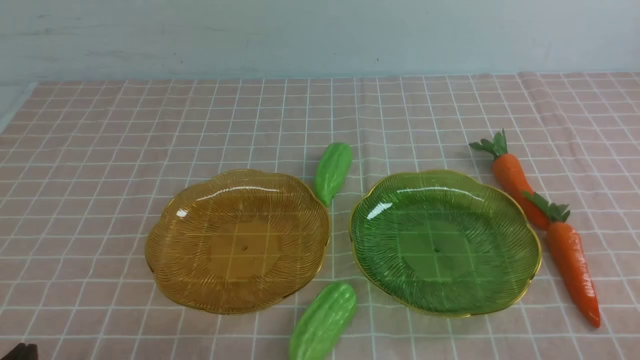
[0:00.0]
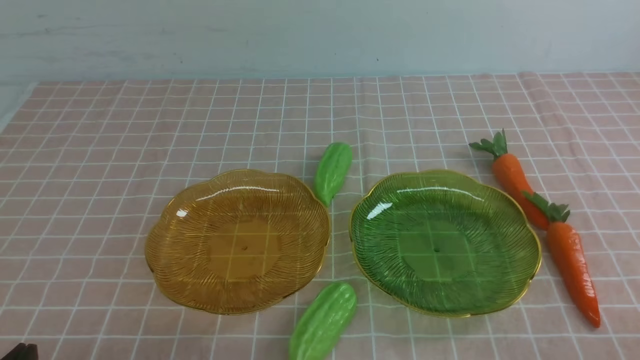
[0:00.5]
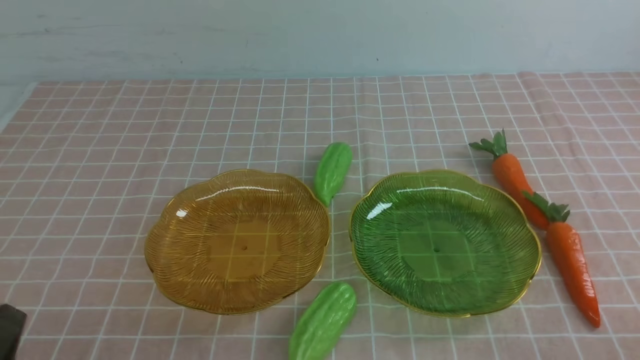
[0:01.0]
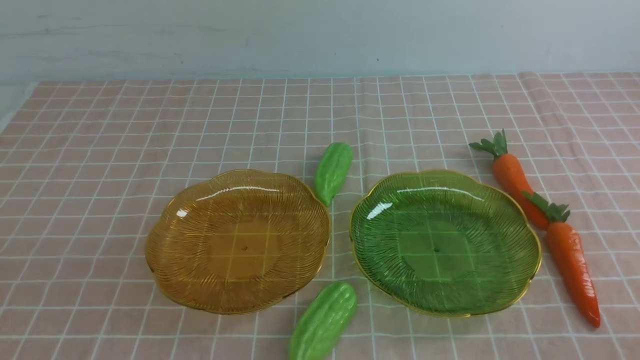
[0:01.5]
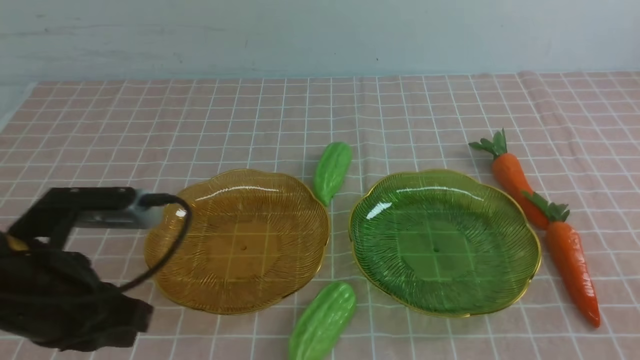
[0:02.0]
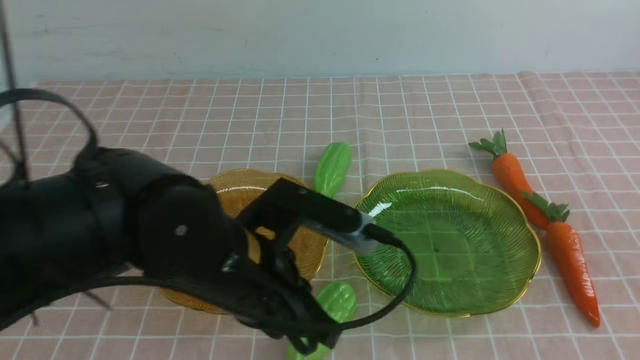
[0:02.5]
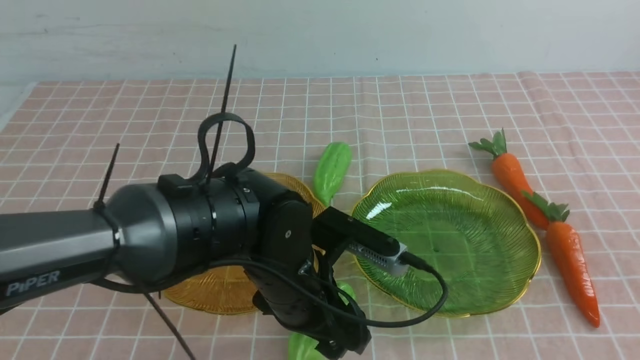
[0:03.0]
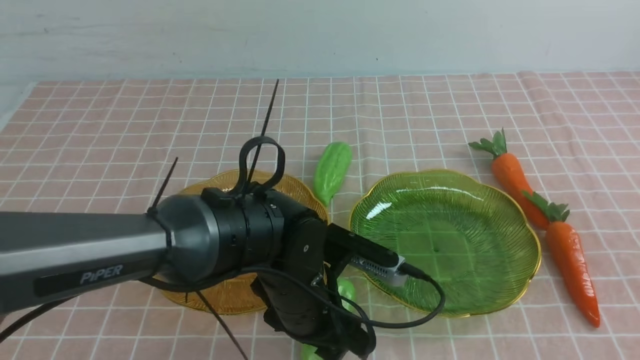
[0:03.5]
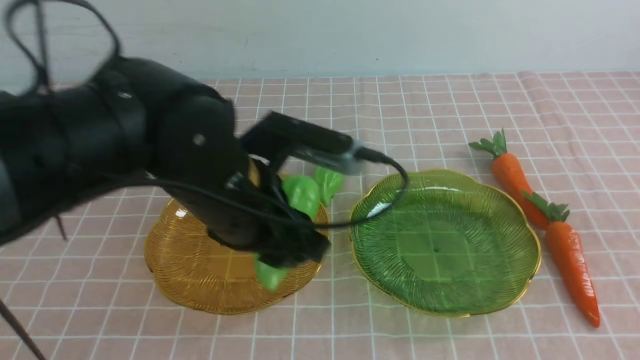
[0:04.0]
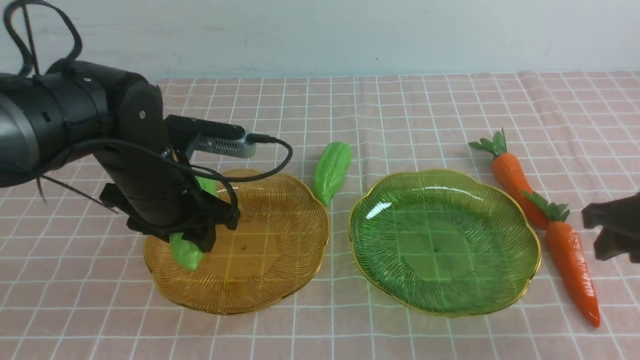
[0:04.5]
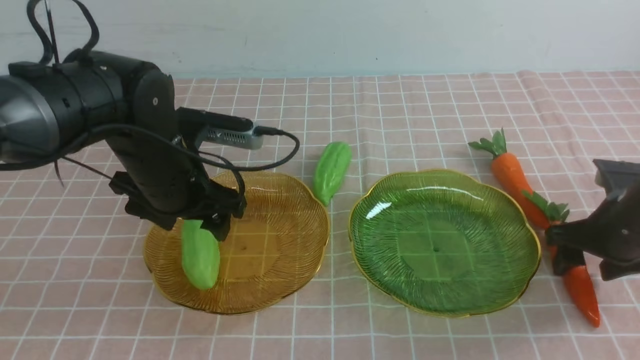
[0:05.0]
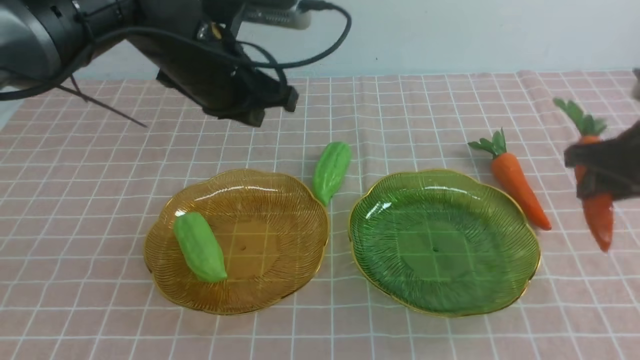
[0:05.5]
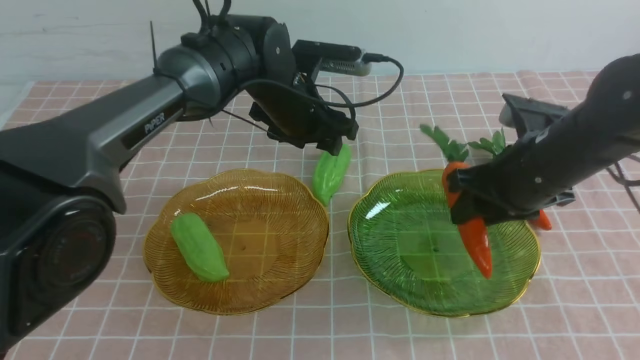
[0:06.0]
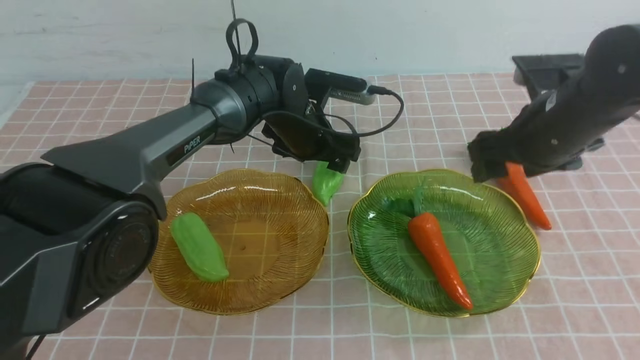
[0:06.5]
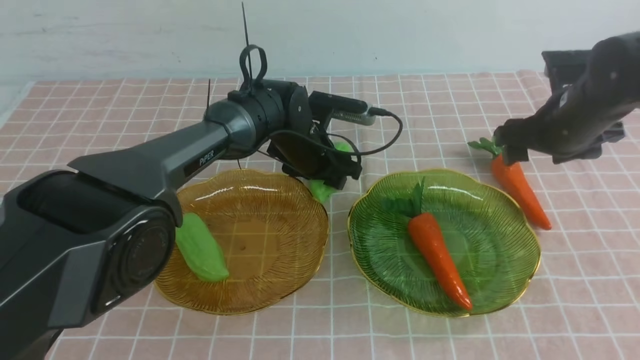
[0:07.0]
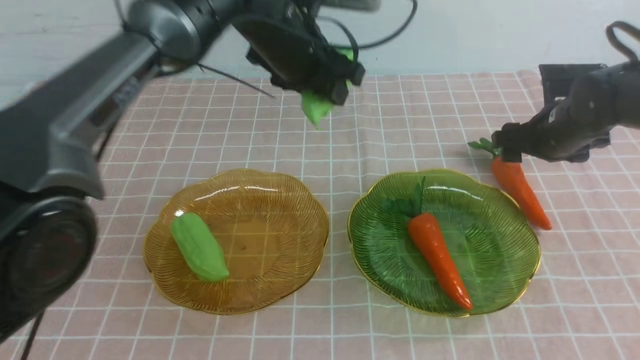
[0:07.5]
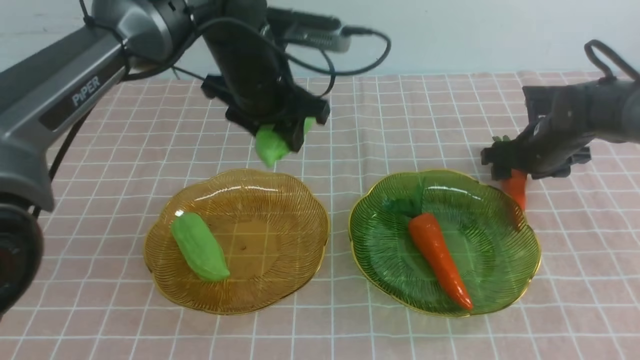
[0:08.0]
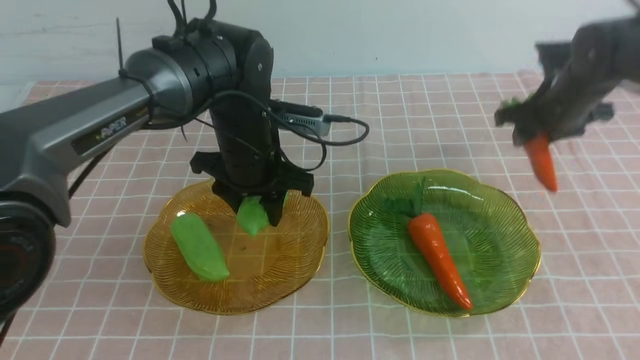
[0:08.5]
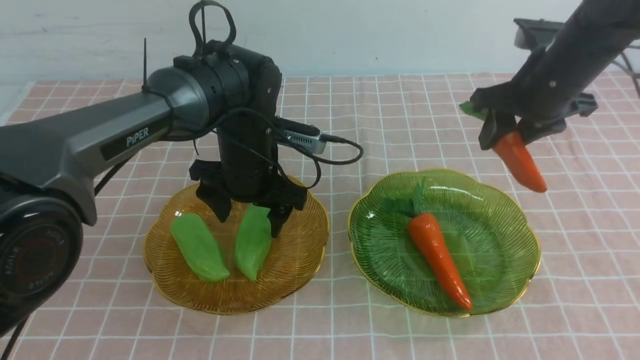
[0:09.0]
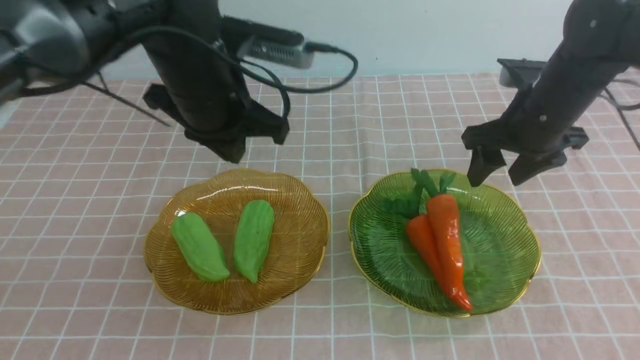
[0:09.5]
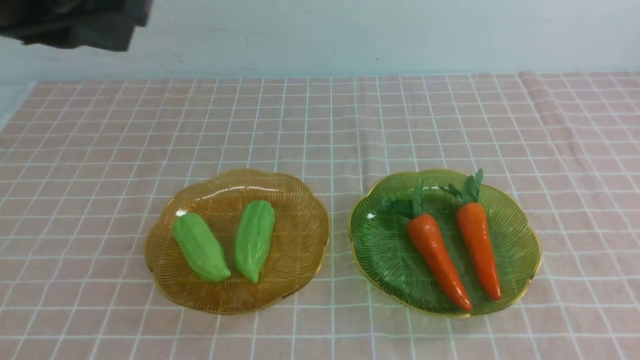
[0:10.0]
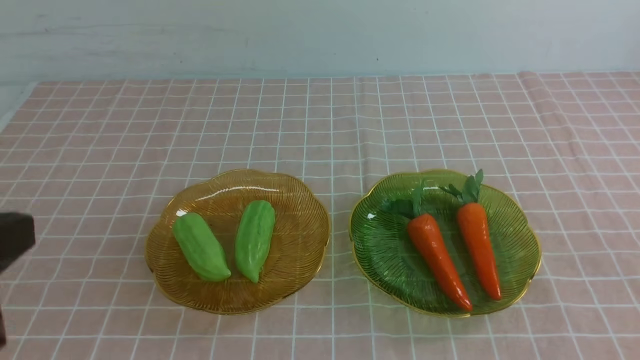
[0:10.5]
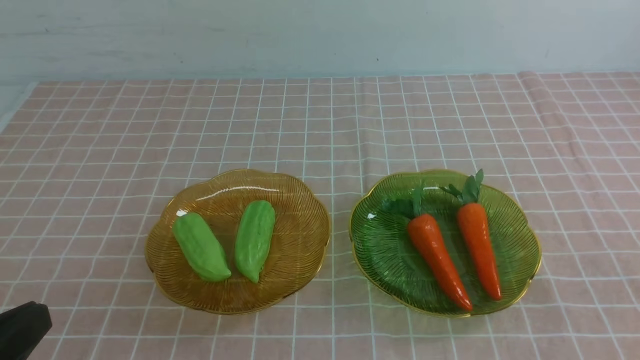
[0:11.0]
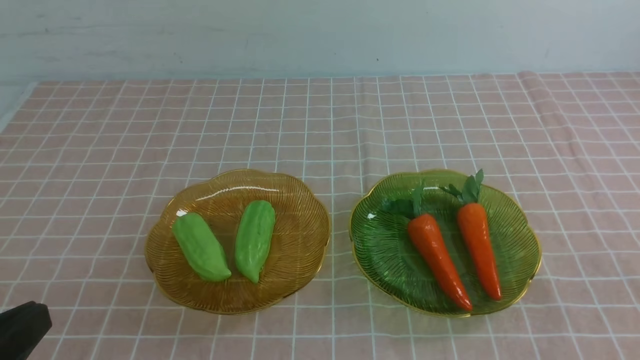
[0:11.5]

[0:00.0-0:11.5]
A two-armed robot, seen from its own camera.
Step, 0:00.0 to 0:04.5: use the left arm to grab a chayote and put it into the left plate.
Step, 0:05.0 to 0:06.0: use the left arm to grab a carrot and put it into the left plate.
Step, 0:06.5 to 0:08.5: use the left arm to grab a chayote and put it into the left plate.
0:00.0 to 0:02.0: The left gripper travels forward, upward and to the right by roughly 15 cm.
0:02.0 to 0:04.0: The right gripper heads forward and upward, covering roughly 10 cm. The left gripper is displaced to the right and forward by approximately 15 cm, and opens up.
0:04.0 to 0:06.0: The right gripper moves forward, to the left and downward, roughly 20 cm, and opens; the left gripper travels forward by some 20 cm, and closes, then reopens.
0:06.0 to 0:07.5: The left gripper is displaced upward by some 5 cm, while the right gripper goes some 15 cm forward, to the right and downward.
0:07.5 to 0:09.5: The left gripper shifts about 10 cm backward and to the left, and closes up; the right gripper shifts some 10 cm upward and backward.
0:09.5 to 0:11.5: The right gripper goes approximately 35 cm backward, and closes; the left gripper heads backward and to the left, covering about 35 cm.
